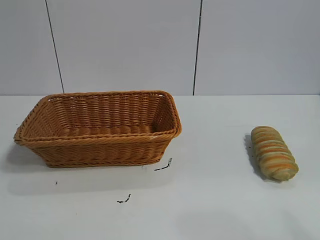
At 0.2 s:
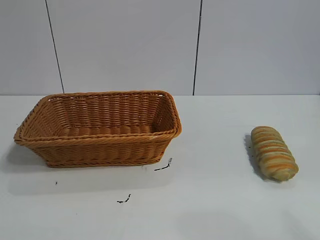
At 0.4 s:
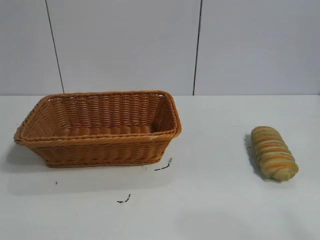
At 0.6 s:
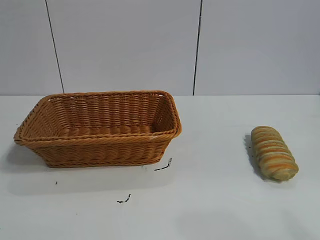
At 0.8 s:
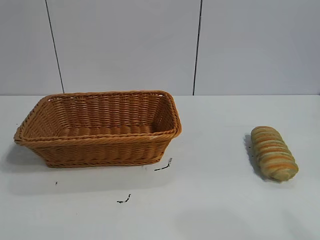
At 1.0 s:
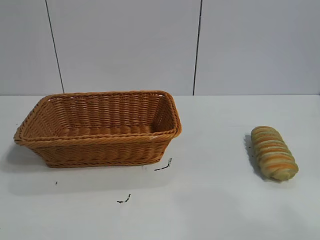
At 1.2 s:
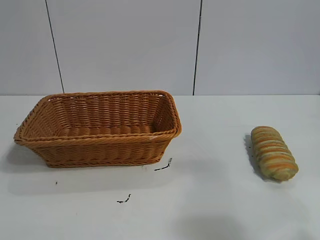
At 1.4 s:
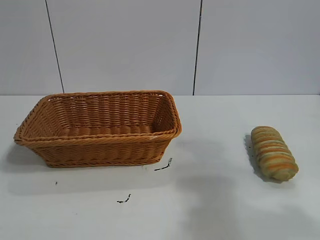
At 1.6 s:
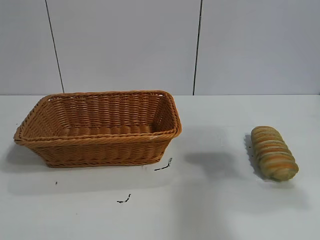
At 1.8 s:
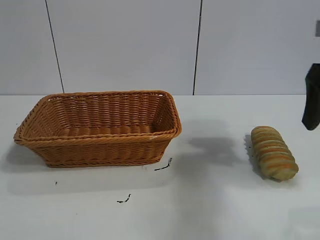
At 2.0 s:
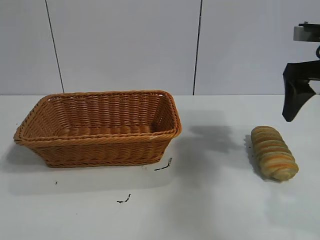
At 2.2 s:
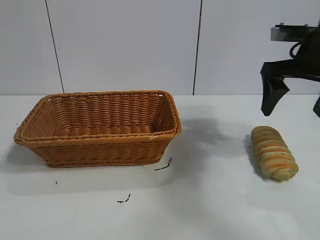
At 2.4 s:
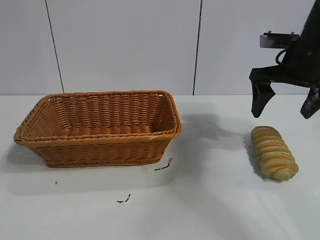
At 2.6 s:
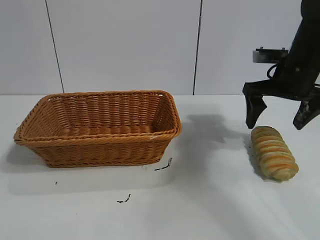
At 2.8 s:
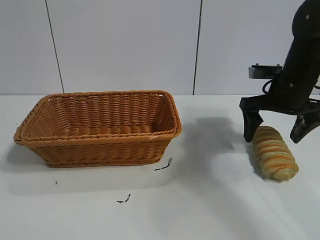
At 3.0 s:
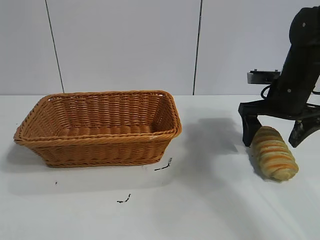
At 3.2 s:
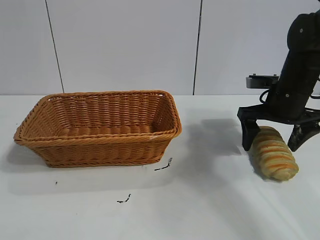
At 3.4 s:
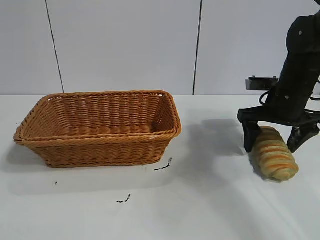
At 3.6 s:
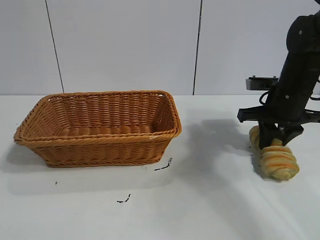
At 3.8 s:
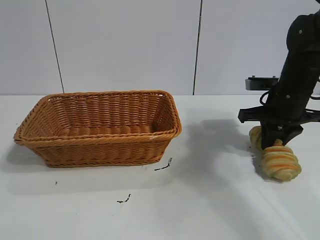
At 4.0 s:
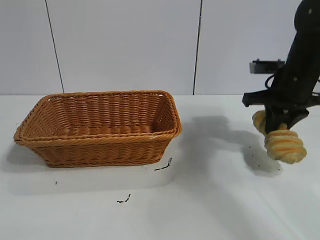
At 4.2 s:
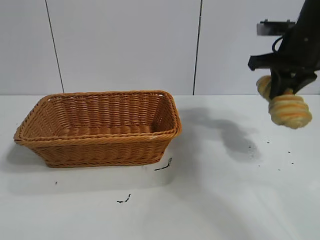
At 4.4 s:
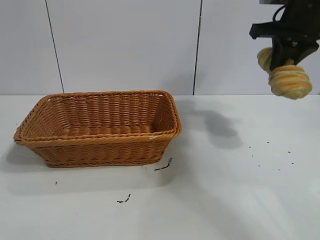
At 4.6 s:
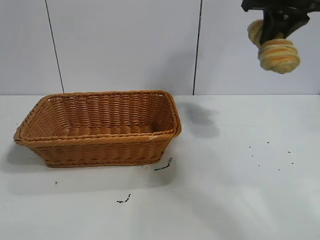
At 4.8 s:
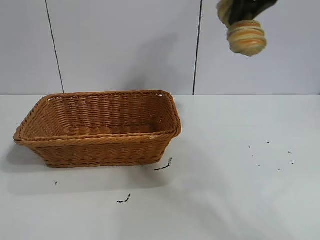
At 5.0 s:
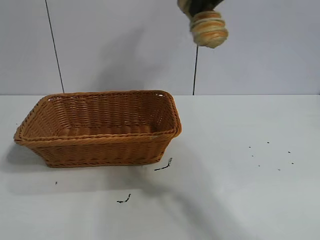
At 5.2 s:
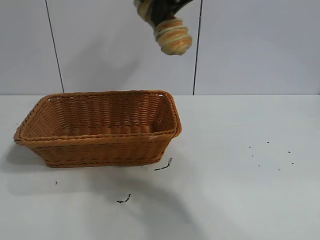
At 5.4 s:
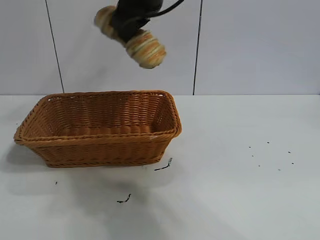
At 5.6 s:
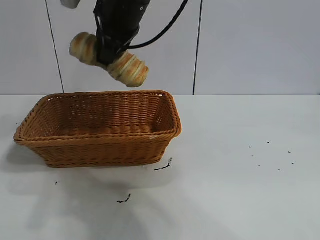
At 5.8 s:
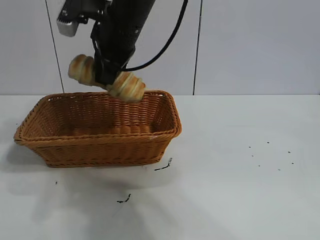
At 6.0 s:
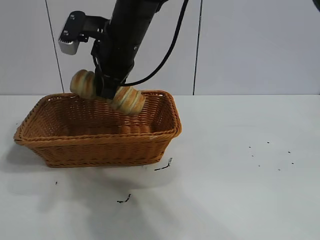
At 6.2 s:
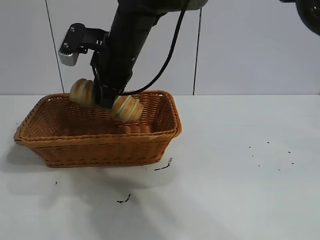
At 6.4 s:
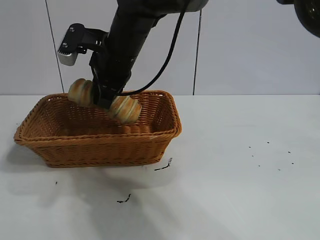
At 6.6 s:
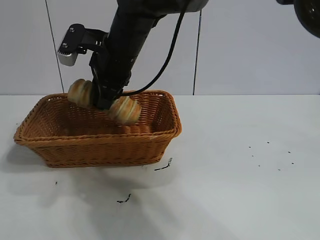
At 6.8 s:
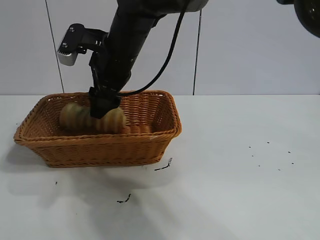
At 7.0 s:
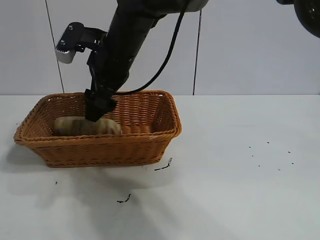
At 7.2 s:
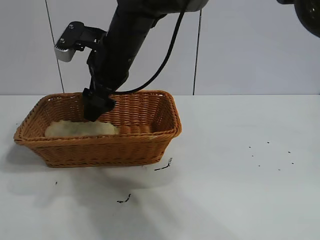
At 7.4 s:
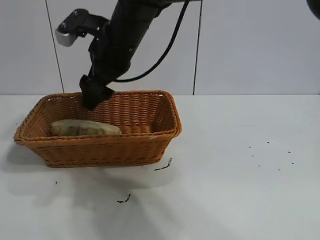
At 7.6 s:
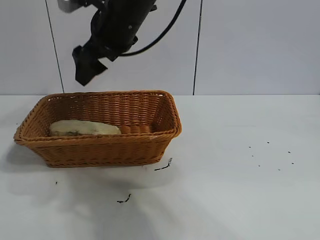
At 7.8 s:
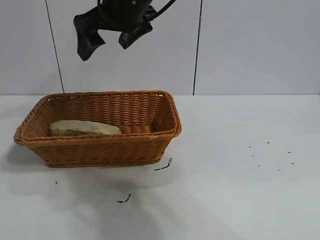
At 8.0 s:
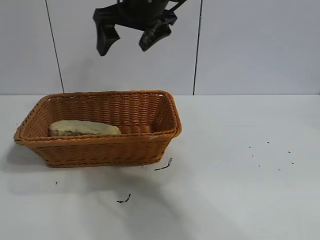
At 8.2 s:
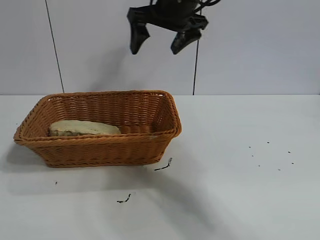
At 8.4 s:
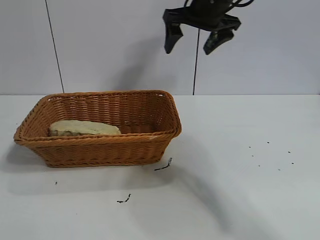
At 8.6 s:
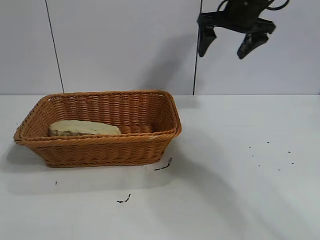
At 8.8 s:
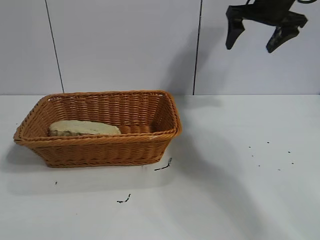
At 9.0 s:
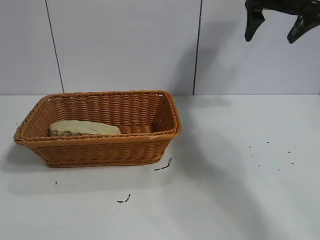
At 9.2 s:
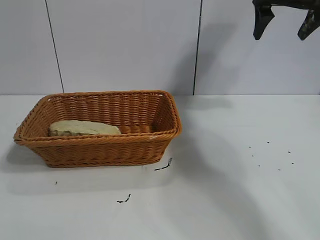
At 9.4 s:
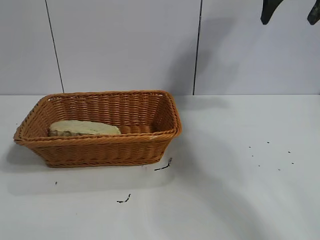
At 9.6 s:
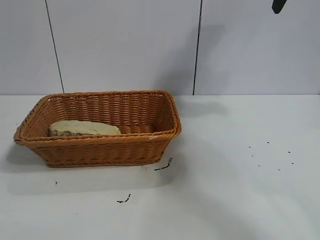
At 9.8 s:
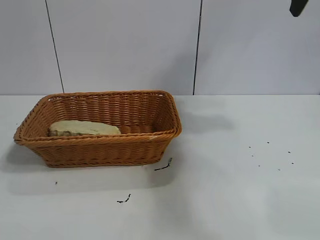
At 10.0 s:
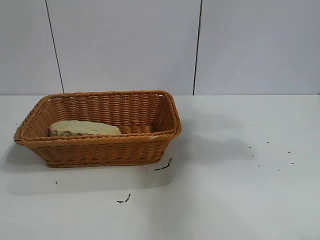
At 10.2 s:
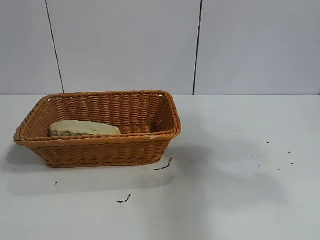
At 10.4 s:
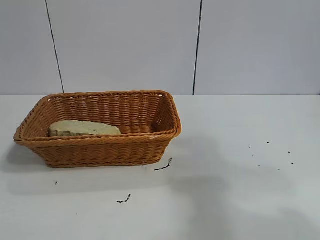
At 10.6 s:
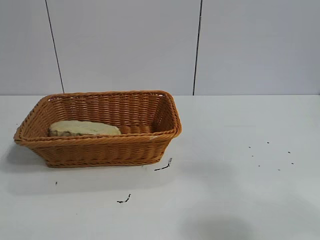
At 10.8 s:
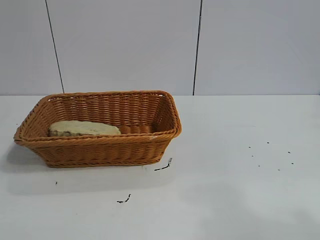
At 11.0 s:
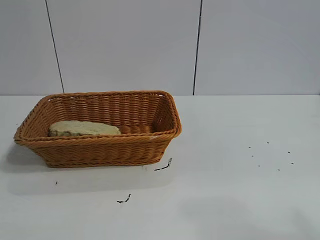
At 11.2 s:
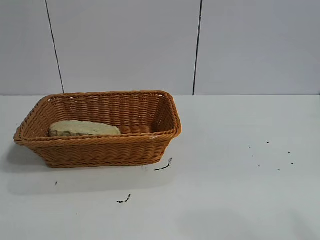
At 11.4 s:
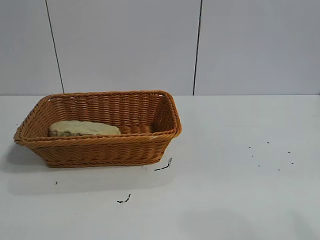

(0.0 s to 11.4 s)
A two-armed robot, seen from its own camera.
Task of the whole recording: pick up the long bread and put it into the basket.
Step, 1.8 s - 3.8 s: Grasp the long bread with right gripper.
Step, 4.0 s - 7.6 s: Place the long bread in the basket with right gripper.
